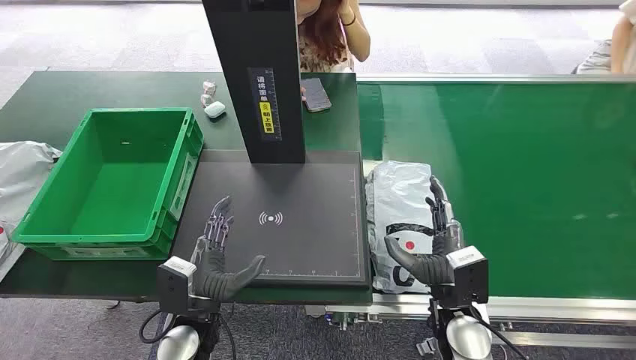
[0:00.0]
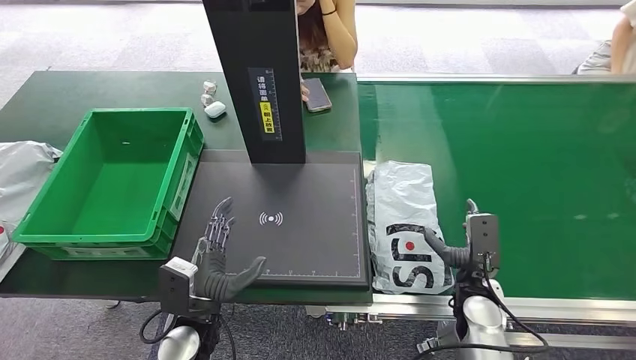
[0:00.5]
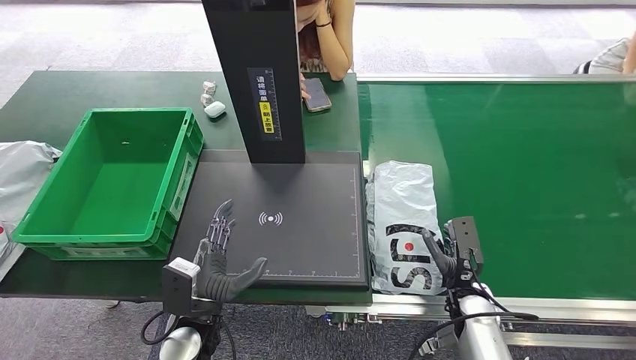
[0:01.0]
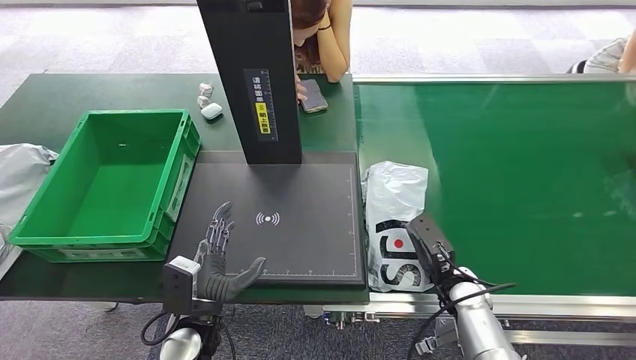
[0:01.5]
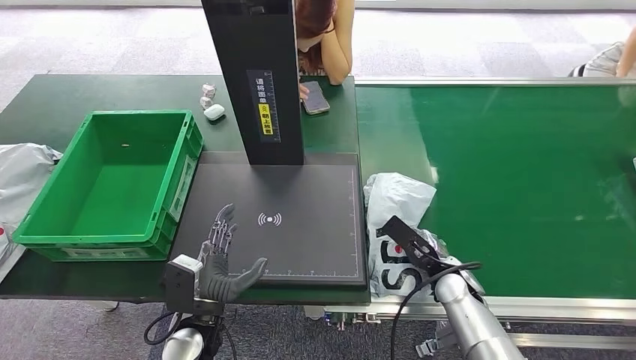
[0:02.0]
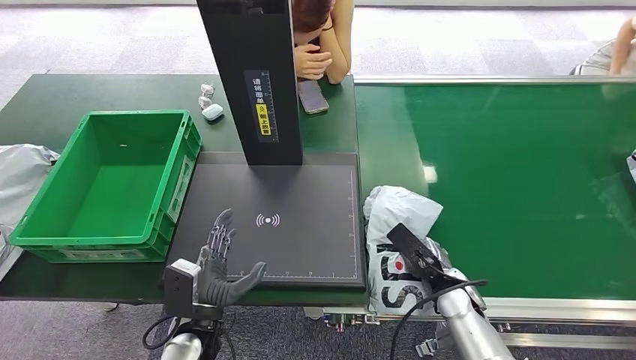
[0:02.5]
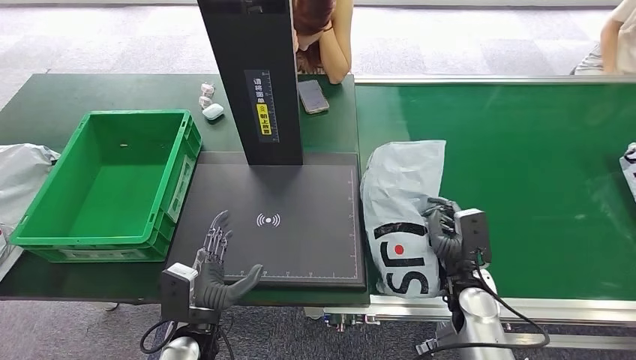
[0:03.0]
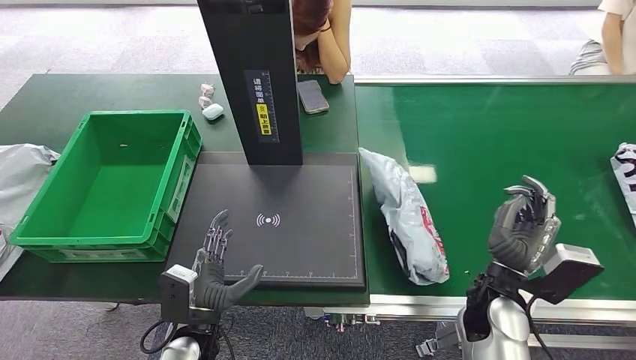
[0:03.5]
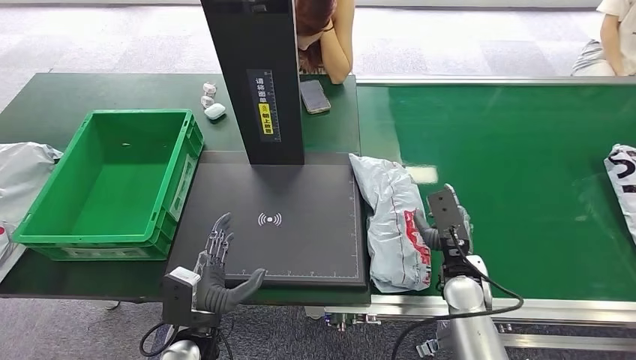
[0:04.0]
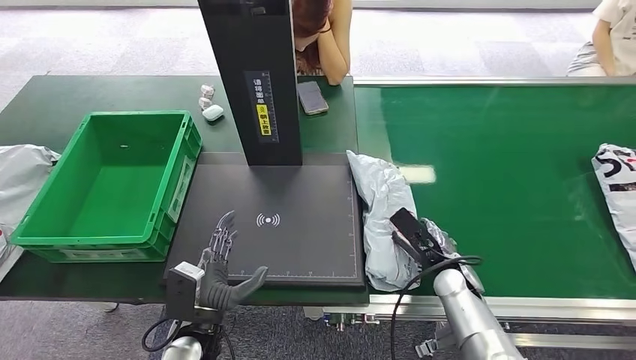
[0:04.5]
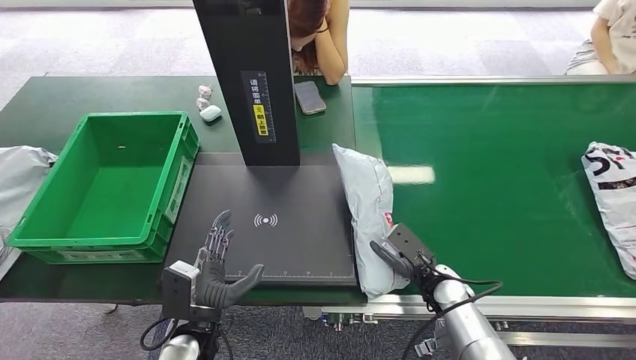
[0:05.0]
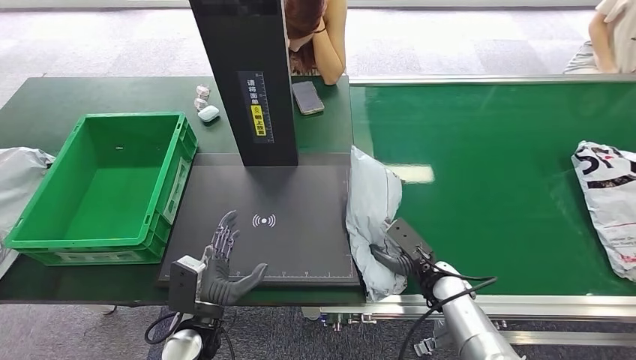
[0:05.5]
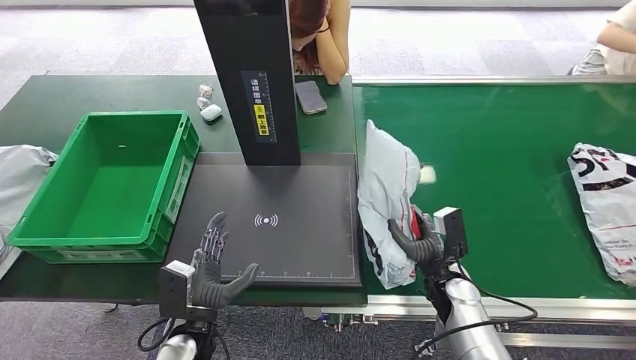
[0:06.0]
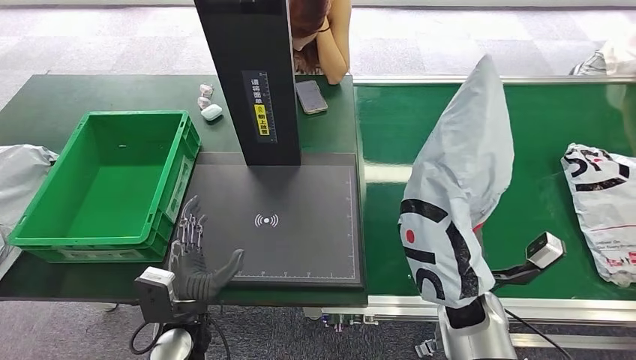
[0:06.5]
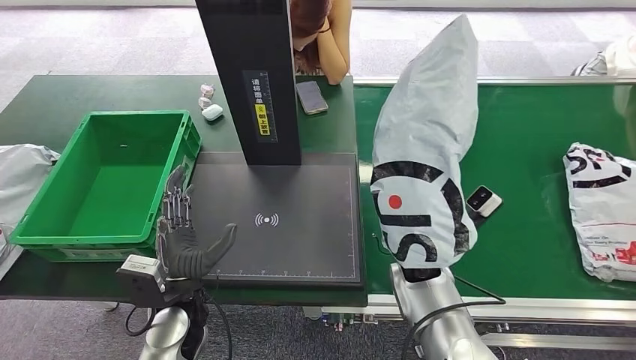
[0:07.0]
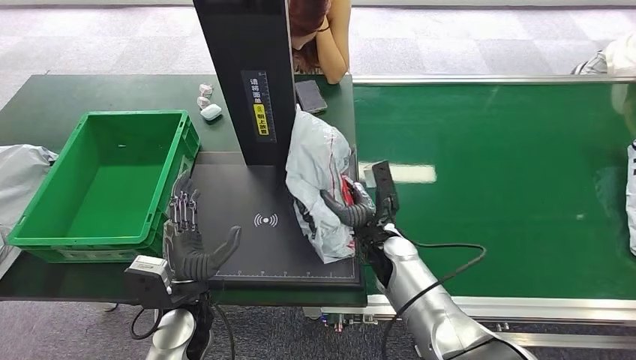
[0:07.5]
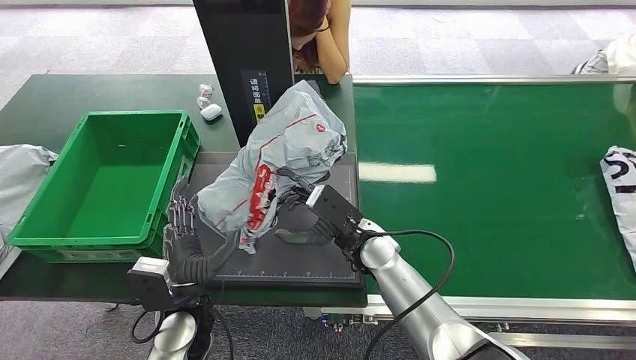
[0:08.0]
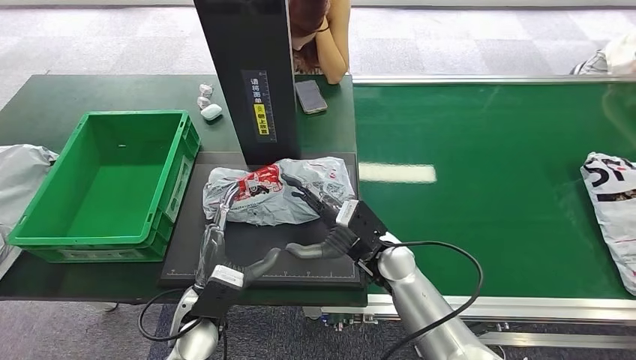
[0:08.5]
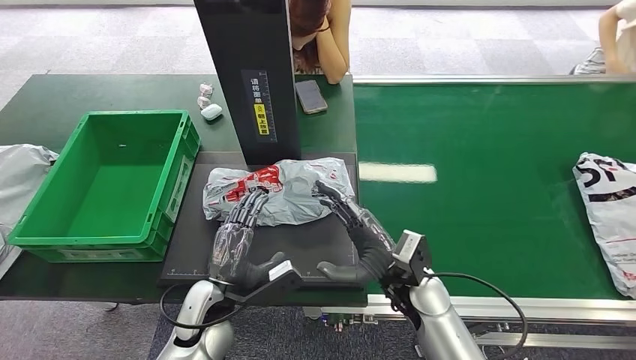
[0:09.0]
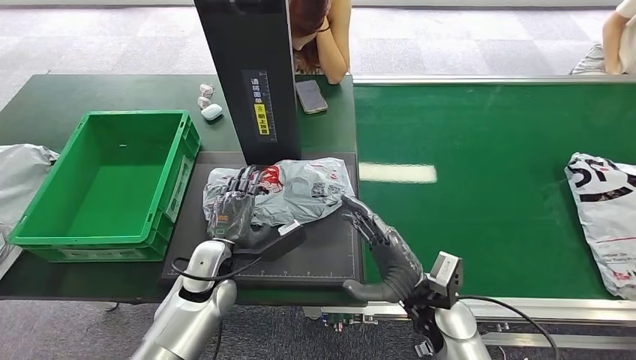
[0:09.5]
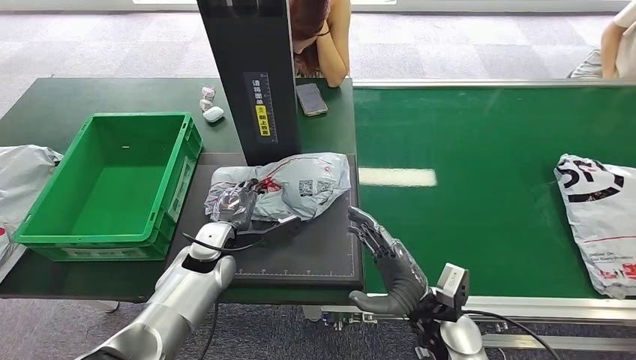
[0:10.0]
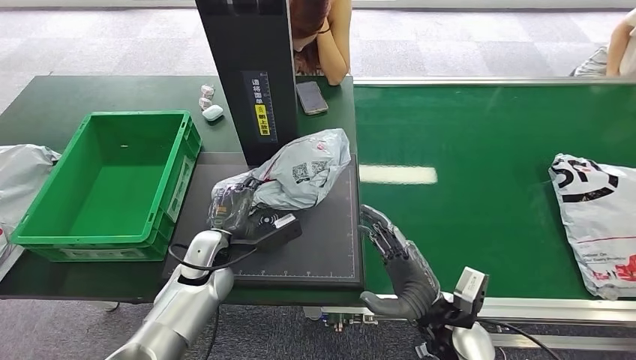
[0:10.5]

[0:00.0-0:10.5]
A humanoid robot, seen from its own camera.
Step, 0:00.0 to 0:06.5: Pick up the package from the conveyor belt.
Step, 0:07.0 to 0:08.5: Place the package onto the inbound machine.
0:02.0 to 0:04.0: The right hand is displaced upward by roughly 5 cm.

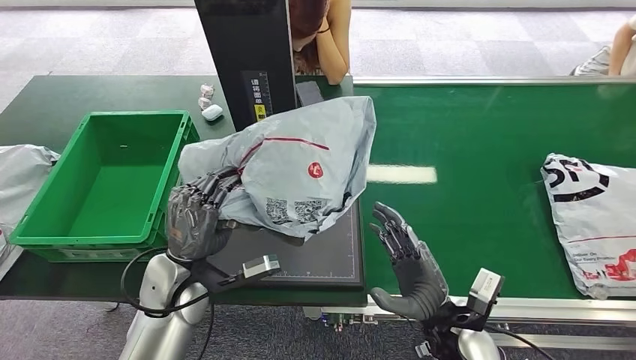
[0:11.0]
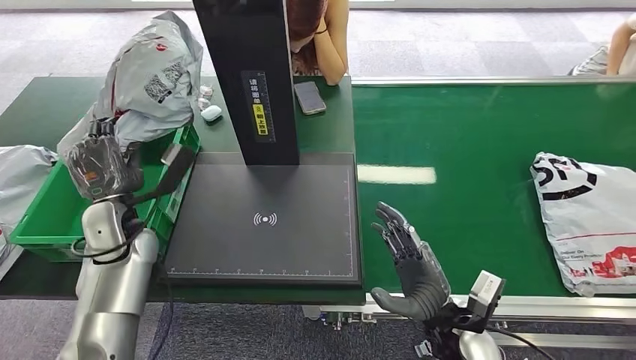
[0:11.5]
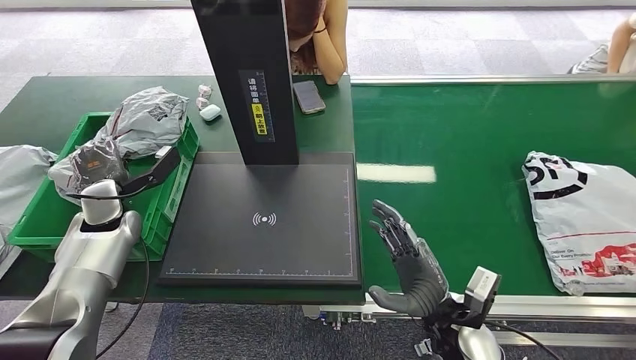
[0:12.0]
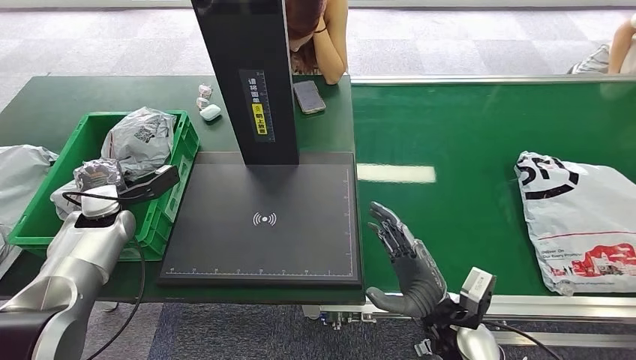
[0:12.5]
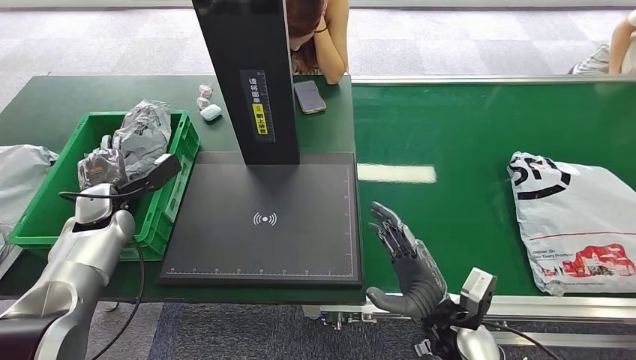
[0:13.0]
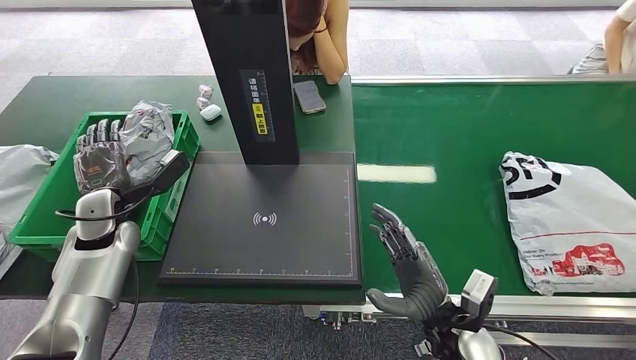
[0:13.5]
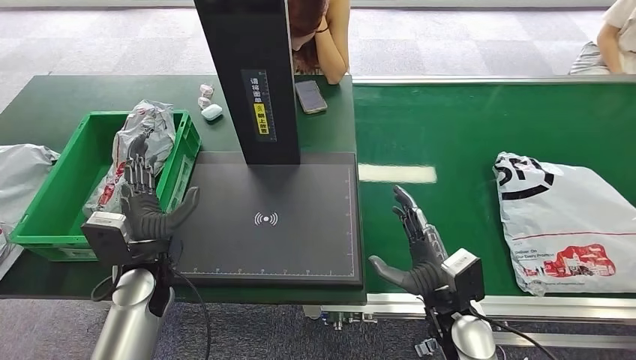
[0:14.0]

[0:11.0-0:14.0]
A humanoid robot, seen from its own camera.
Step, 0:12.0 to 0:14.0: Place the package into the parcel locker.
